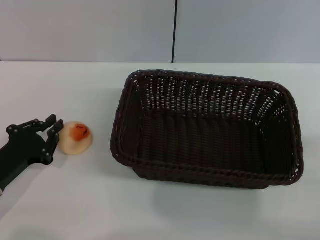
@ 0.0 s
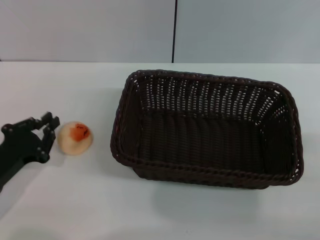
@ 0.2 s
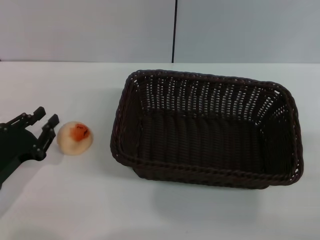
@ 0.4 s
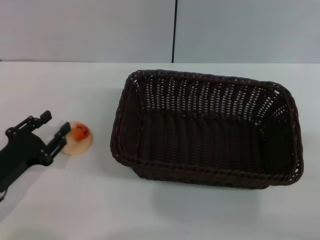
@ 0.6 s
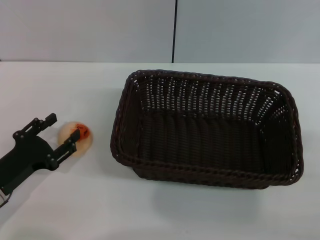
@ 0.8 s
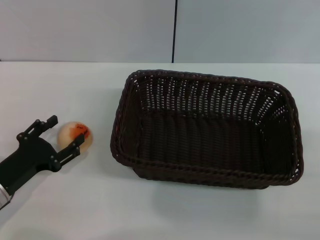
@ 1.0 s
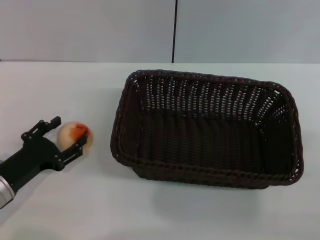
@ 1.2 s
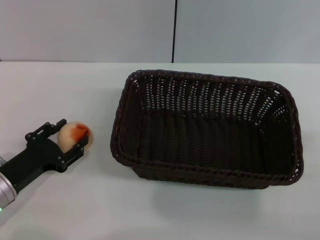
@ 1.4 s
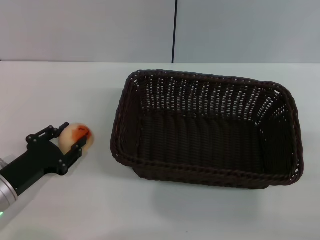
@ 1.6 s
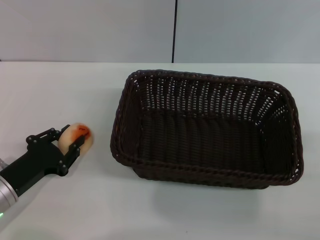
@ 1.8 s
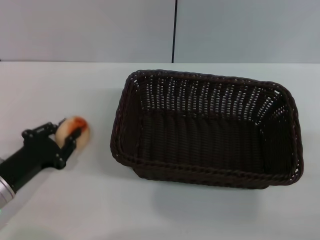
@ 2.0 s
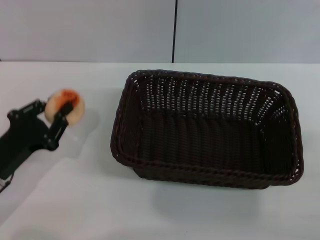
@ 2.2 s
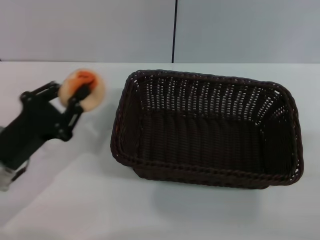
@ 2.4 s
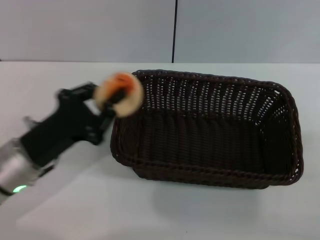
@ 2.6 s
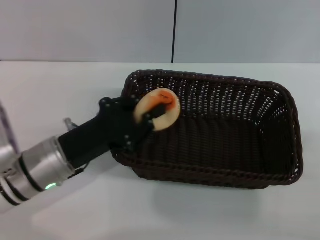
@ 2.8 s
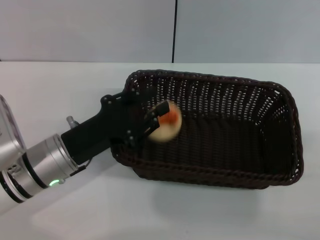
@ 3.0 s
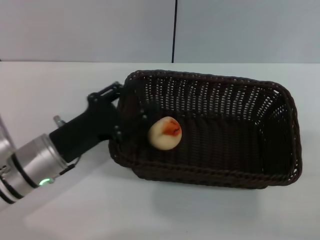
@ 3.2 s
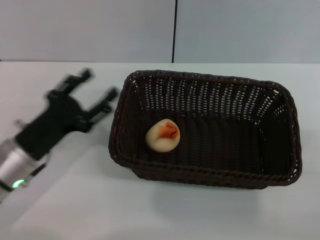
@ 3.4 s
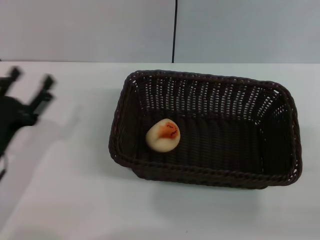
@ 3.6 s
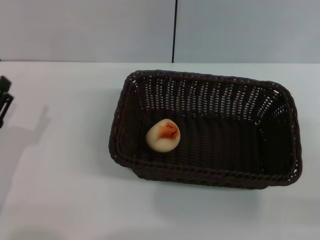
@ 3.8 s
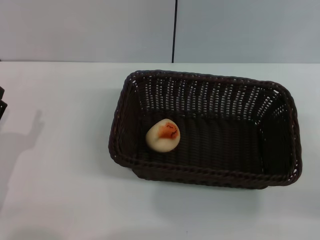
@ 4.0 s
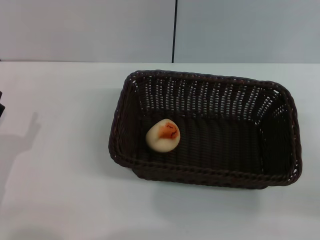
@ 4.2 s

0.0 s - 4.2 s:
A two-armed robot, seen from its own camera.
Step, 0.0 s - 2.6 s: Pick up the egg yolk pastry with the left gripper.
Step, 2.8 s - 3.4 s: Place the egg yolk pastry into the basket with the left gripper.
0.0 s - 1.4 s: The left gripper opens its fingers.
1.4 s - 2.8 s: The left gripper heads to the right and upward, covering roughly 10 cm, and closes.
2.8 s - 4.2 s: The left gripper goes approximately 15 cm to the left and backward, and opens.
